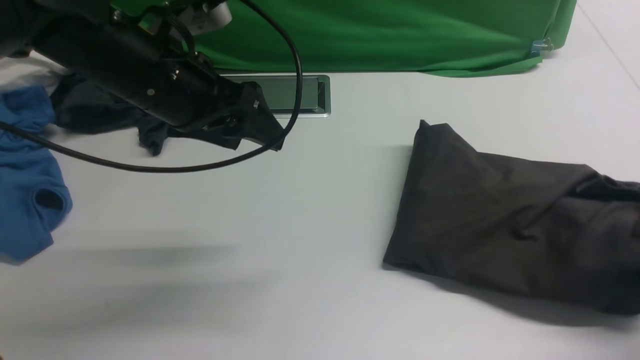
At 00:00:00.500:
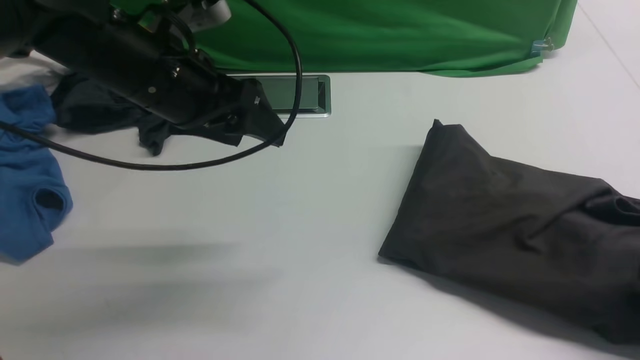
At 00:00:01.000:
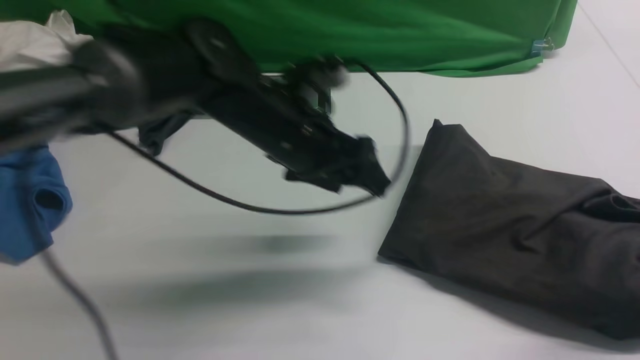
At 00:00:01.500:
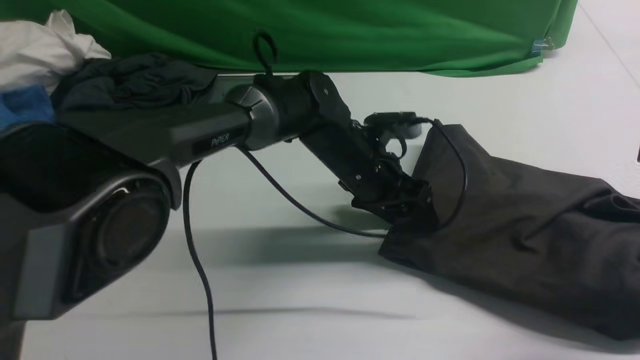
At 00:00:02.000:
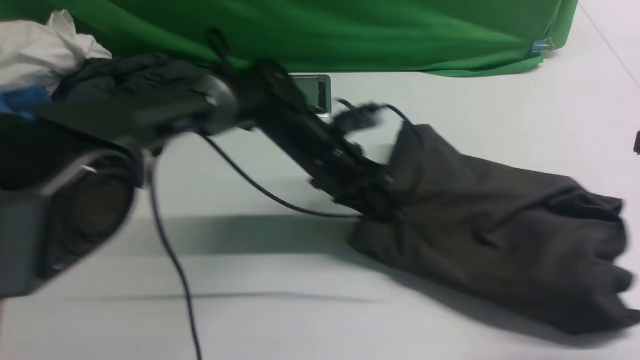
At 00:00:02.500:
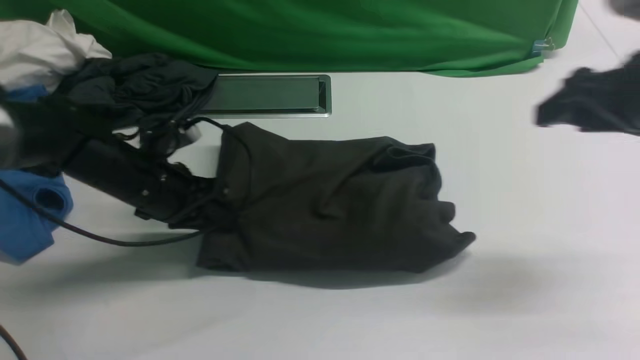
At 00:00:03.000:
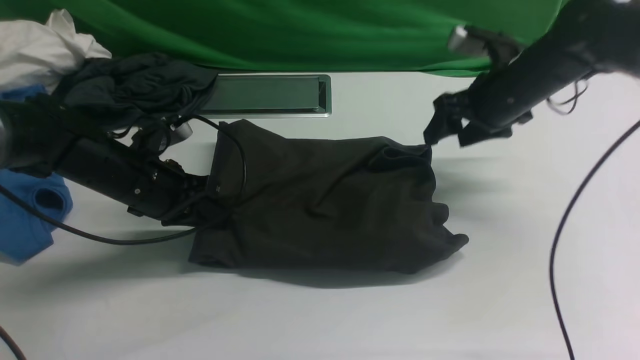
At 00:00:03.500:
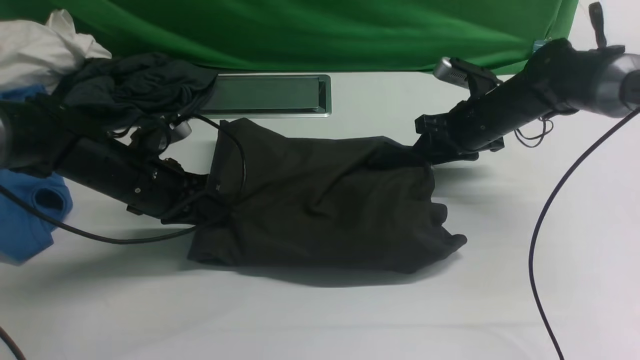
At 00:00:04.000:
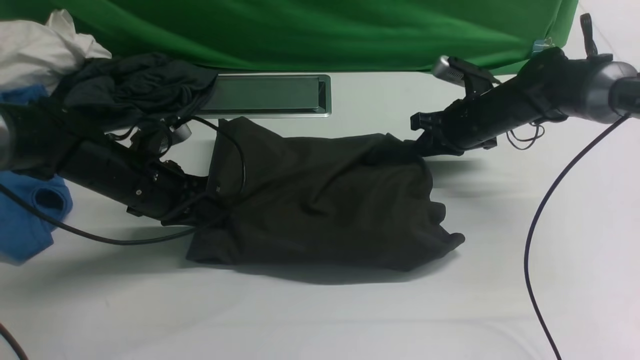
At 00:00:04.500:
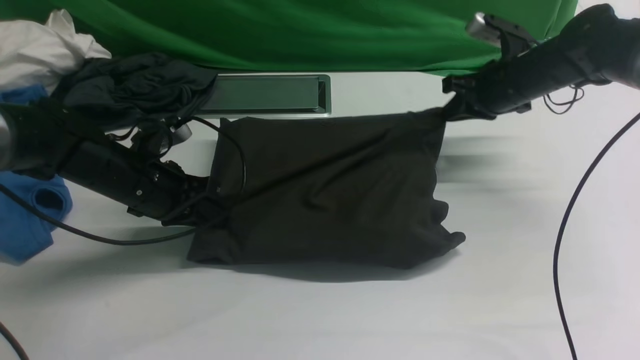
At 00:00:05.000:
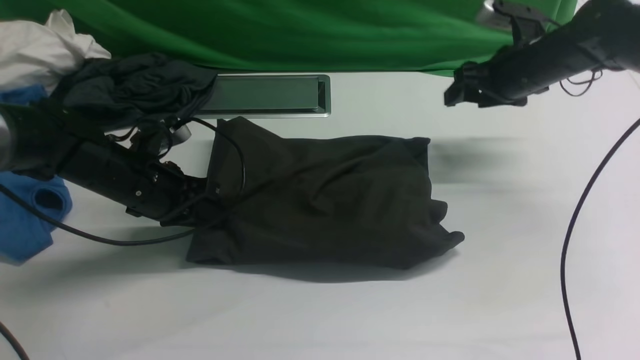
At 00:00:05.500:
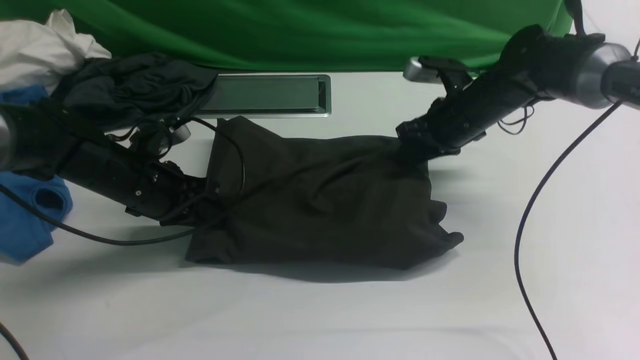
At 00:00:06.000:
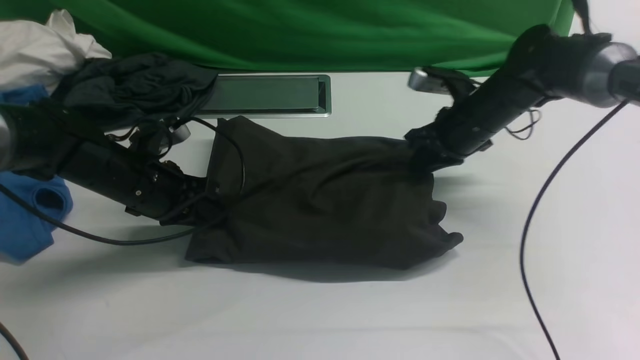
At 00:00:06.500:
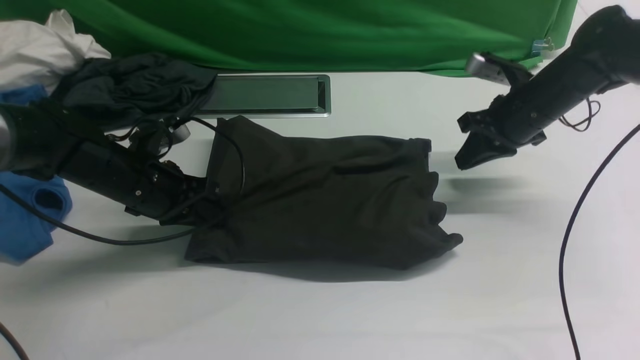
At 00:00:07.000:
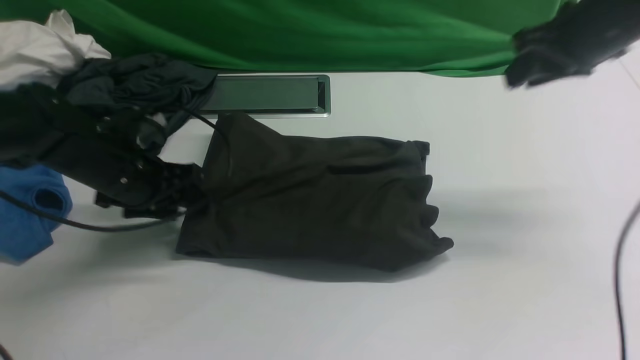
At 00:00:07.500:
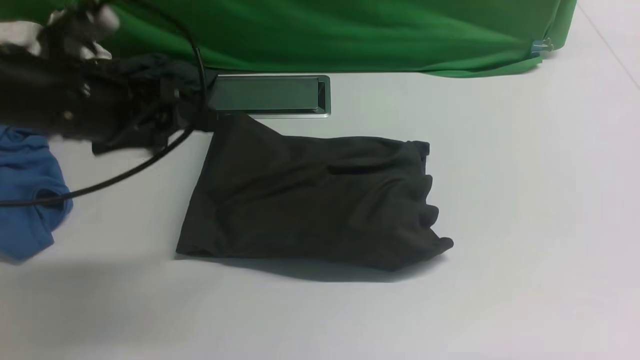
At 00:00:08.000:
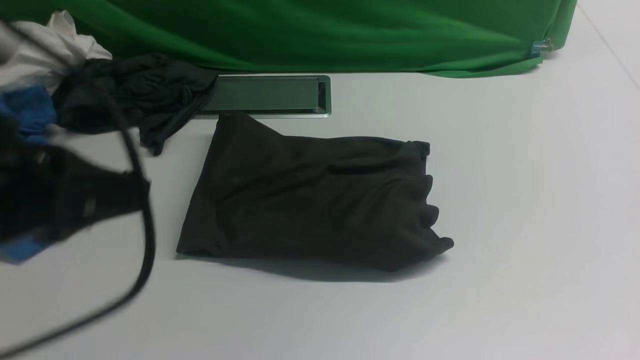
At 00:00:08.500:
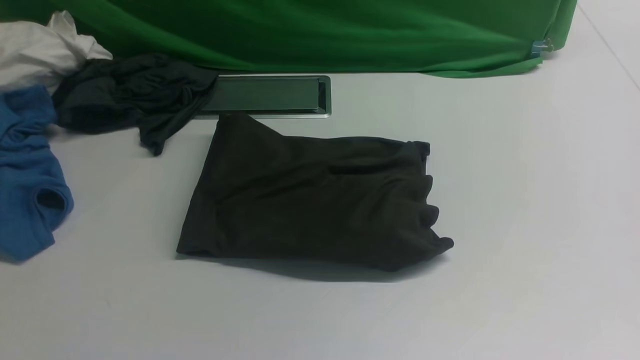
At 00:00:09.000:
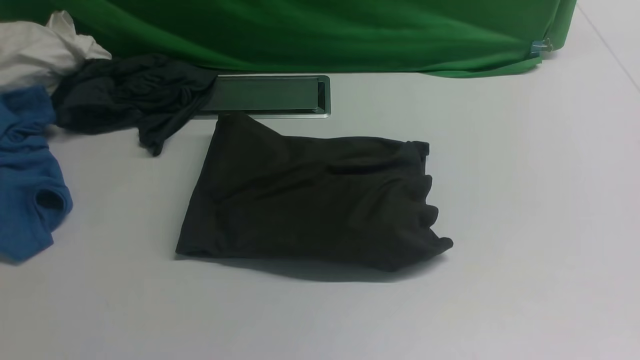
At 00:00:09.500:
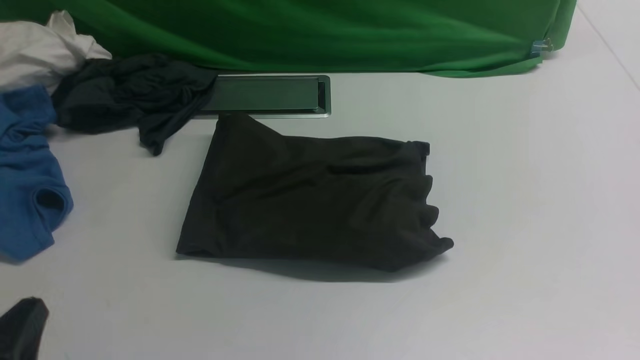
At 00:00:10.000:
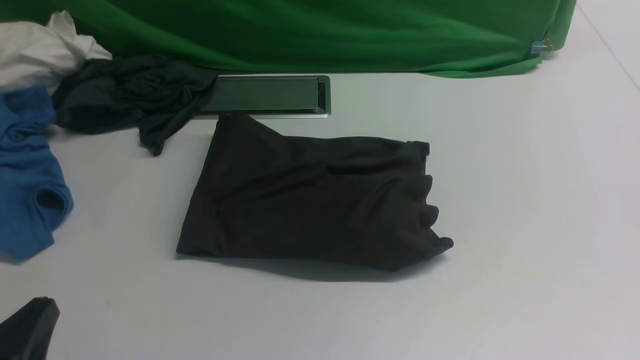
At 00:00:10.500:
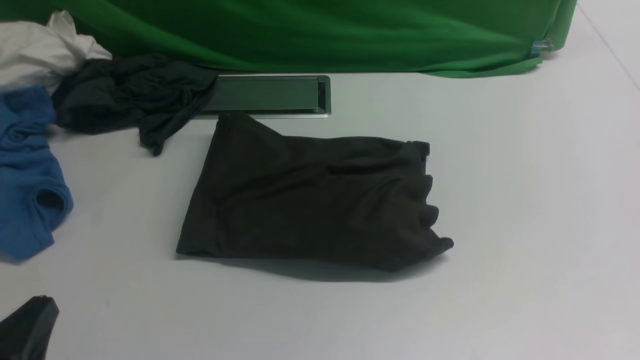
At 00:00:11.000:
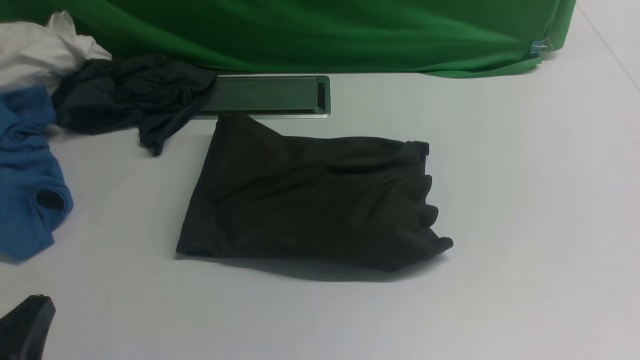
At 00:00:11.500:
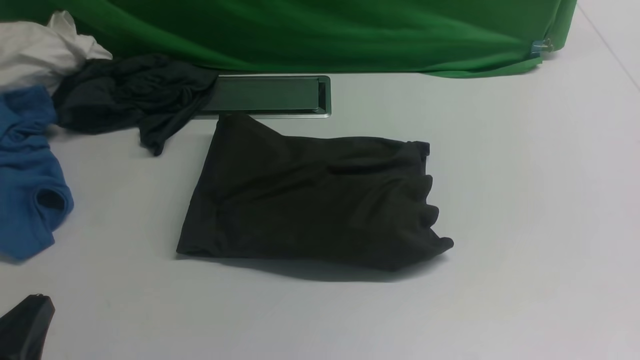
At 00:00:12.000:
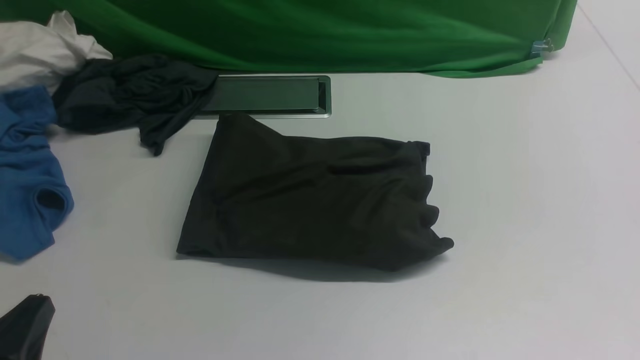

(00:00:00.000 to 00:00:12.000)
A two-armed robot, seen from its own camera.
00:00:00.000 - 00:00:02.000: The left gripper goes some 20 cm downward, to the right and forward, and closes up. Meanwhile the right gripper shifts about 15 cm upward and to the left, and opens.
00:00:02.000 - 00:00:04.000: The left gripper shifts some 20 cm to the left, while the right gripper shifts roughly 30 cm forward, downward and to the left, and closes.
00:00:04.000 - 00:00:06.000: The right gripper opens, then closes again.
00:00:06.000 - 00:00:08.000: The left gripper shifts approximately 30 cm upward and backward, and opens, then closes again; the right gripper moves backward, roughly 35 cm, and opens and closes again.
00:00:08.000 - 00:00:10.000: The left gripper shifts some 20 cm downward and backward.

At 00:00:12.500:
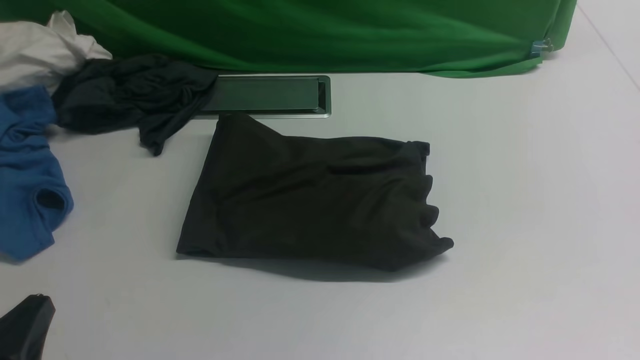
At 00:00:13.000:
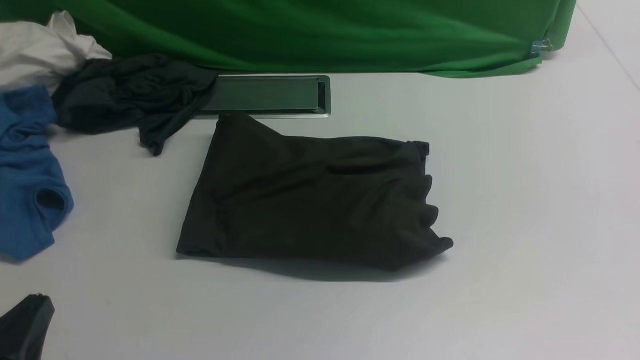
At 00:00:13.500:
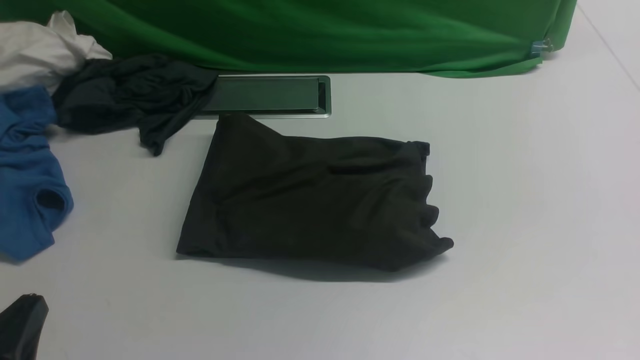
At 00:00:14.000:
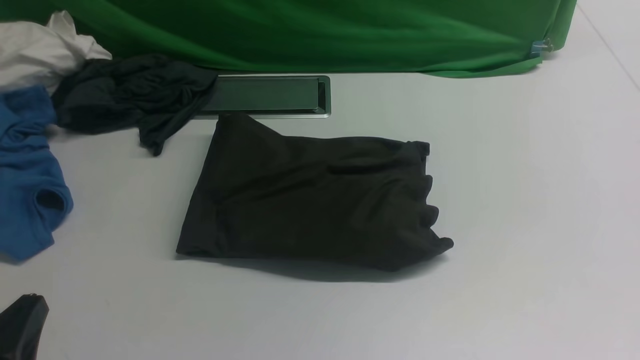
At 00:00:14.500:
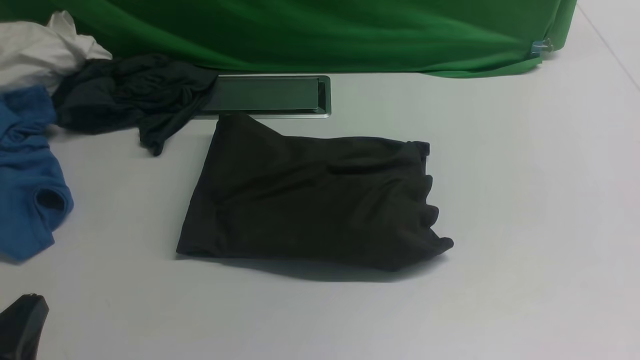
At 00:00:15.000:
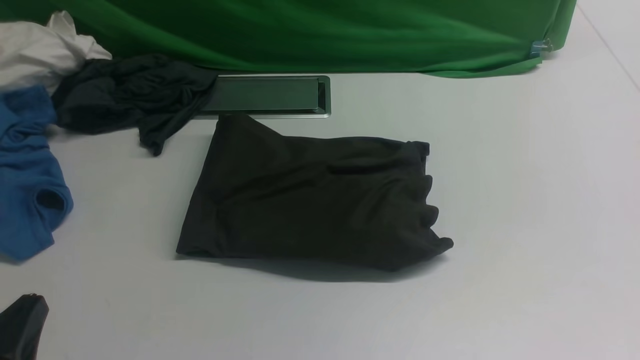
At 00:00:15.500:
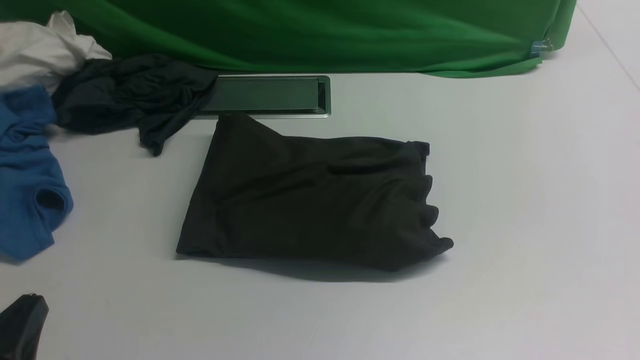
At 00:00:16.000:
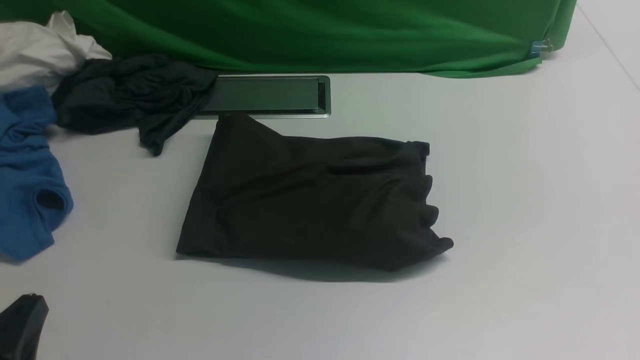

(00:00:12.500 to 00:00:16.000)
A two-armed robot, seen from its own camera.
00:00:12.500 - 00:00:16.000: Neither gripper changes place.
